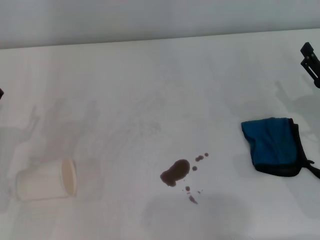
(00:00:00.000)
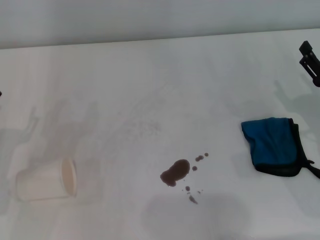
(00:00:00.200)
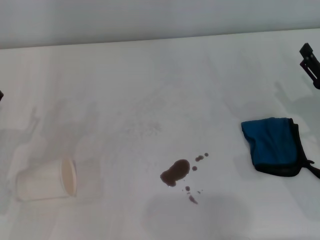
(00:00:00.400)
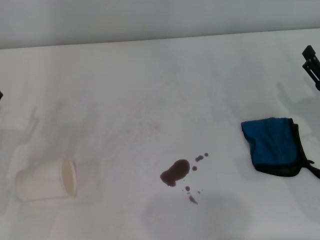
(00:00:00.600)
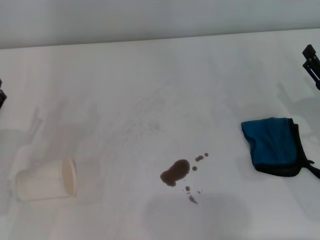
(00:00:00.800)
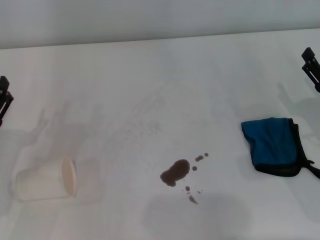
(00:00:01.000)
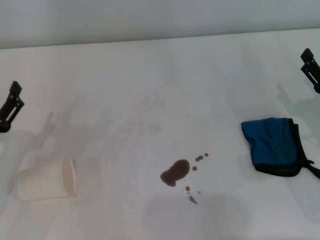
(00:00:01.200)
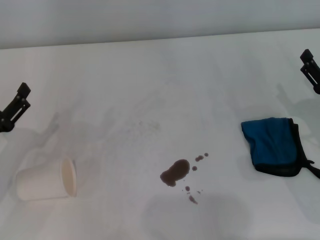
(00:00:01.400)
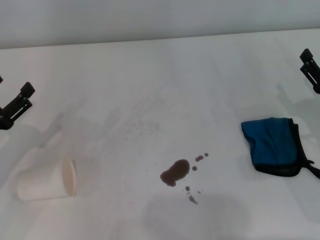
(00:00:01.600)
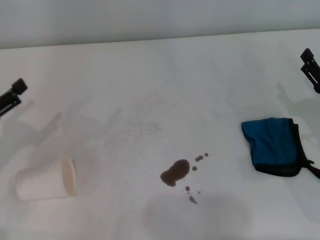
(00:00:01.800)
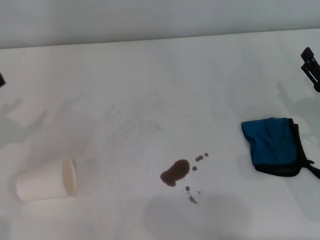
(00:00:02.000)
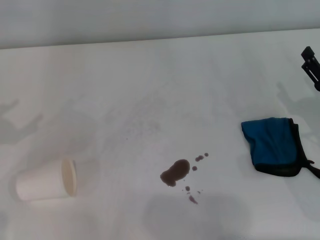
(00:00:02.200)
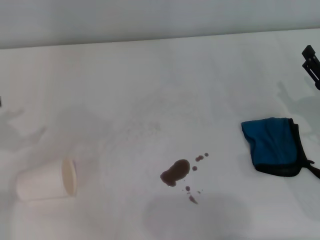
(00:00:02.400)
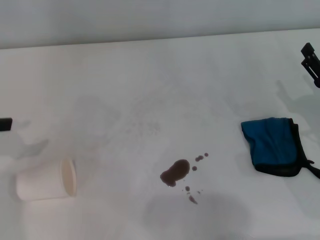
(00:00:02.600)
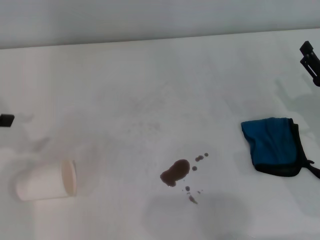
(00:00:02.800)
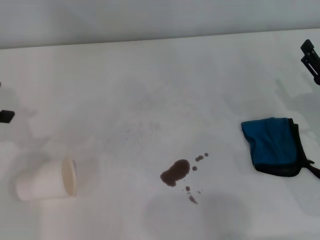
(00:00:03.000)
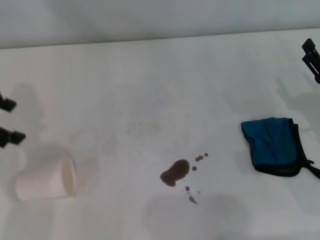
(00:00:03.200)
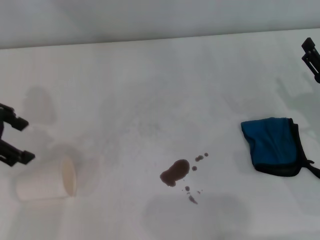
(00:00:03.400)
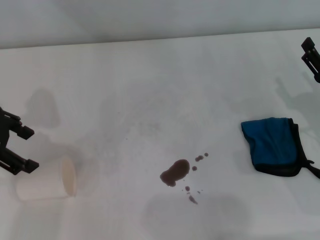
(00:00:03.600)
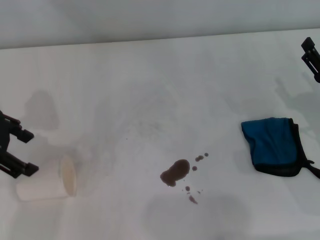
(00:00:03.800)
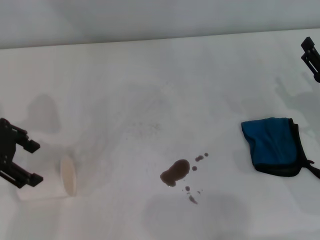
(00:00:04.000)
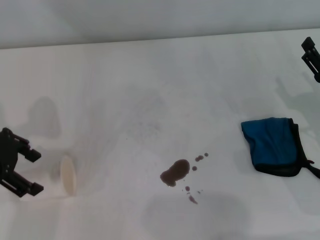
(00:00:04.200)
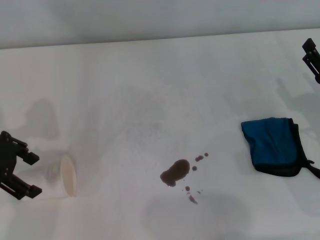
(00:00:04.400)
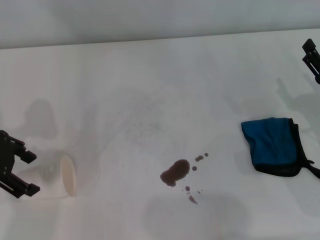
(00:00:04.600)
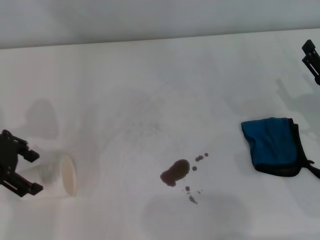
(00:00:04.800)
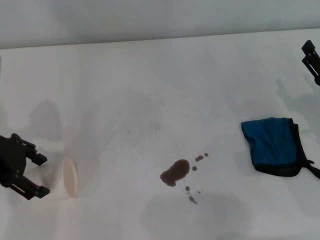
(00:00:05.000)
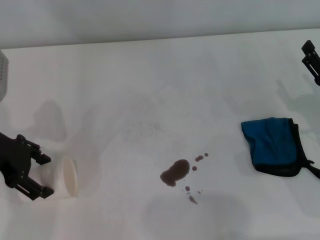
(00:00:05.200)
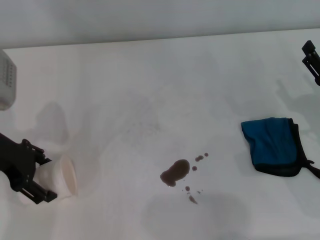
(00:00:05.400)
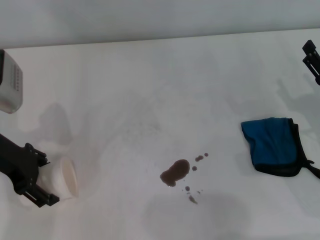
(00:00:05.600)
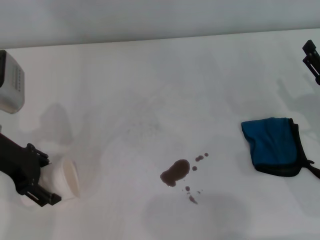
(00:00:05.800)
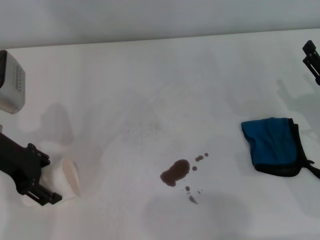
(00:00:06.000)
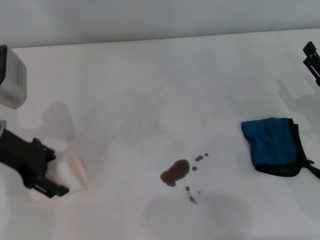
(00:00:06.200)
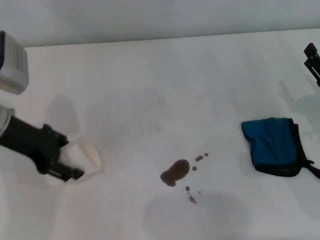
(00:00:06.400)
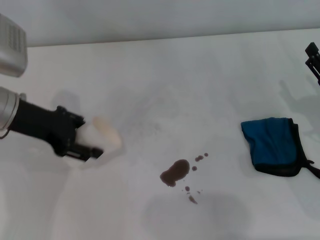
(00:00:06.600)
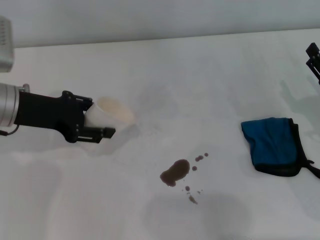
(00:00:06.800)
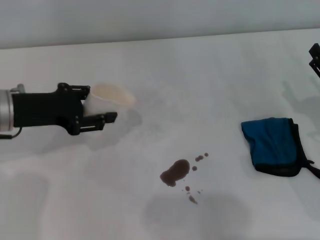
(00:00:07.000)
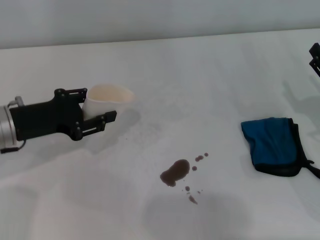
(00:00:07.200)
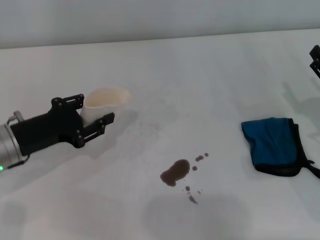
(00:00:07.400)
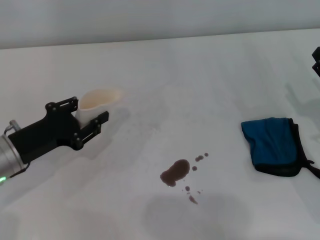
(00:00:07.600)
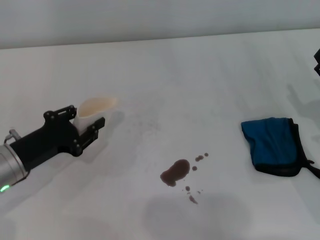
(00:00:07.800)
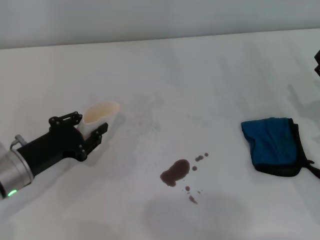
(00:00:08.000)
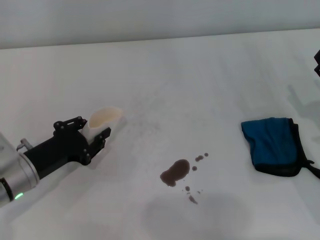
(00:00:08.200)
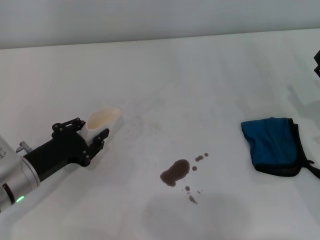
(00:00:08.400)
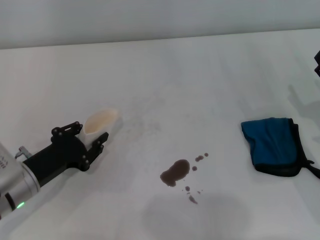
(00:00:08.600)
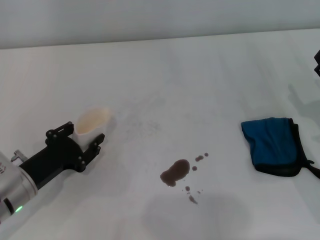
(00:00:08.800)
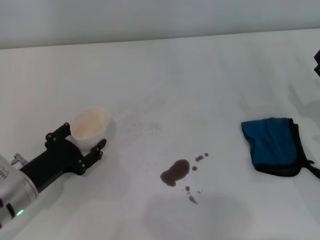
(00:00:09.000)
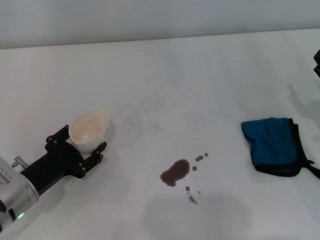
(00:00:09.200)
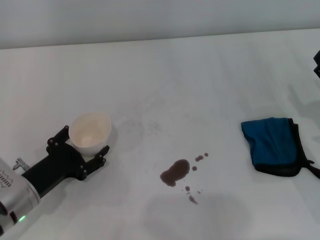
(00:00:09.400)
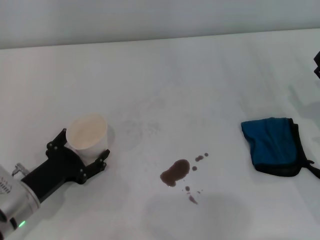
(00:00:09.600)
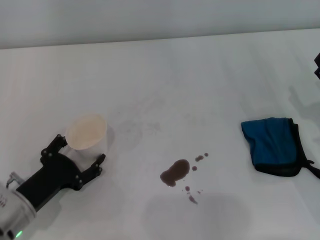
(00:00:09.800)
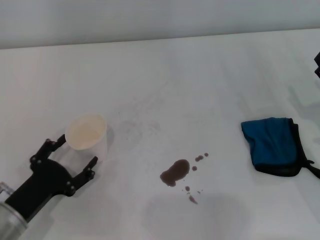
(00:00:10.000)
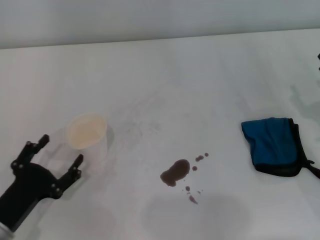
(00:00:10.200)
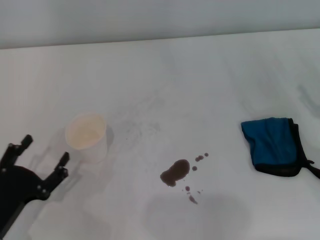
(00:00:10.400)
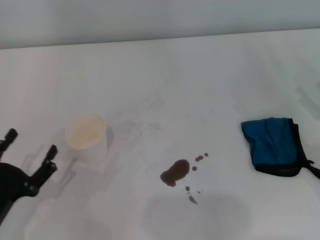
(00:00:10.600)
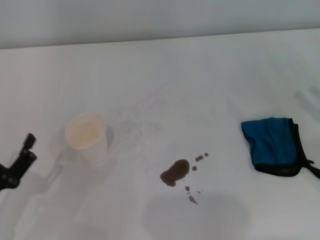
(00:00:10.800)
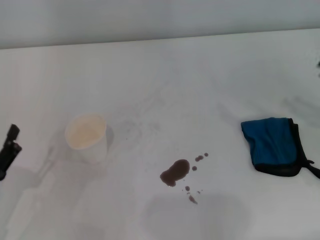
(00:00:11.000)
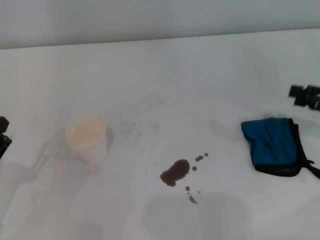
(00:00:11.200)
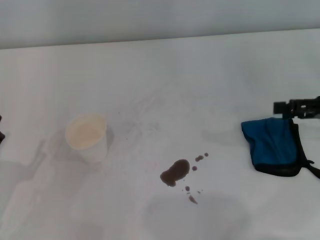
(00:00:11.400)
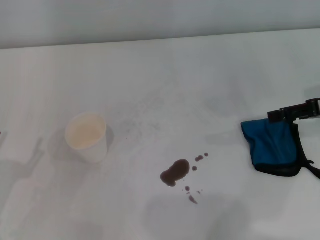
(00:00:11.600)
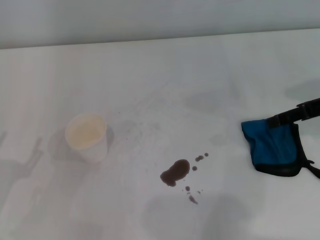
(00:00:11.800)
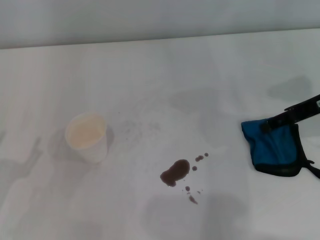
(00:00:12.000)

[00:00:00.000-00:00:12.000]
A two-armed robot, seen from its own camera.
Step, 00:00:00.000 to 00:00:06.000: Grasp the paper cup with the left gripper.
Step, 00:00:06.200 to 00:00:09.400: Stand the paper cup upright with the left gripper.
00:00:01.600 to 00:00:03.000: The left gripper travels upward and forward by approximately 20 cm.
00:00:03.000 to 00:00:04.400: The left gripper heads to the right and downward, covering some 10 cm.
00:00:04.400 to 00:00:06.000: The left gripper shifts by about 5 cm.
00:00:06.000 to 00:00:07.600: The left gripper heads downward and backward, covering some 10 cm, and closes.
00:00:07.600 to 00:00:09.000: The left gripper changes place by roughly 5 cm.
00:00:09.000 to 00:00:10.400: The left gripper goes approximately 10 cm backward, and opens up.
00:00:10.400 to 00:00:12.000: The right gripper heads upward, forward and to the left, covering roughly 15 cm. Meanwhile the left gripper shifts by some 5 cm.

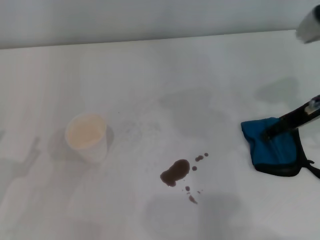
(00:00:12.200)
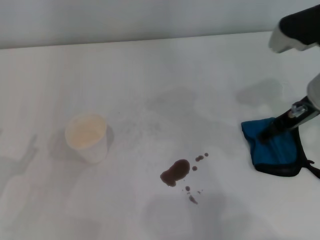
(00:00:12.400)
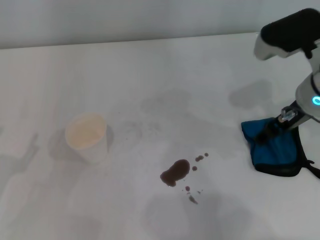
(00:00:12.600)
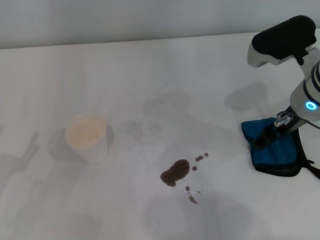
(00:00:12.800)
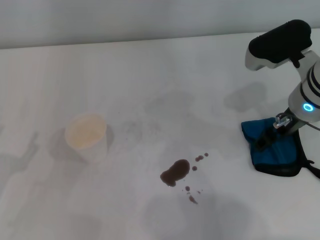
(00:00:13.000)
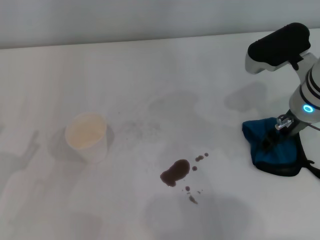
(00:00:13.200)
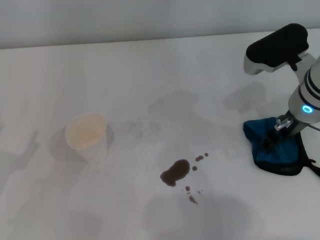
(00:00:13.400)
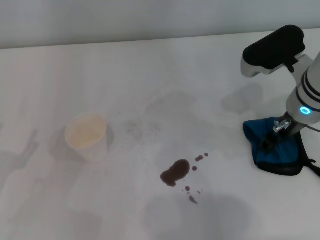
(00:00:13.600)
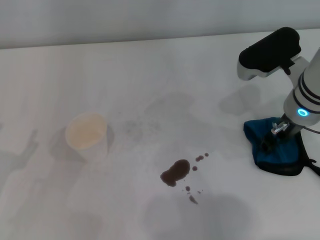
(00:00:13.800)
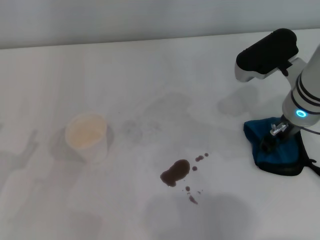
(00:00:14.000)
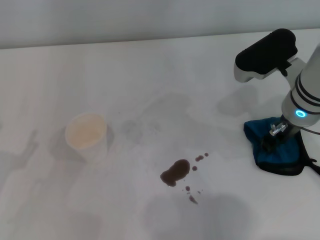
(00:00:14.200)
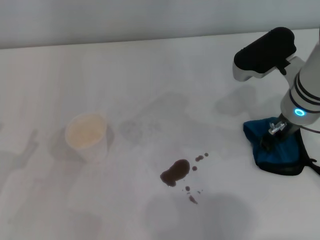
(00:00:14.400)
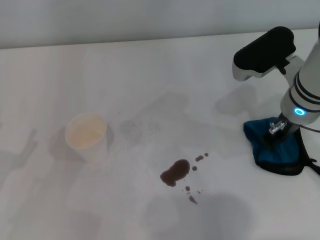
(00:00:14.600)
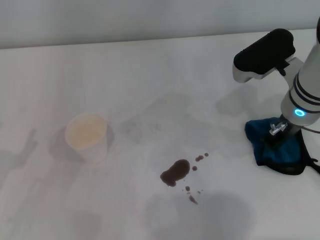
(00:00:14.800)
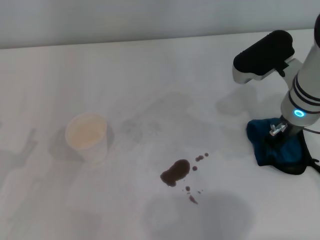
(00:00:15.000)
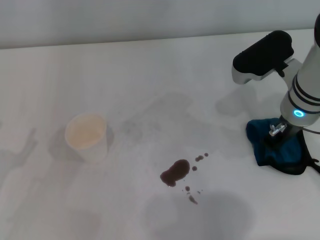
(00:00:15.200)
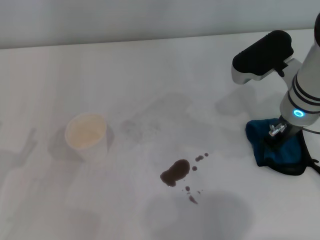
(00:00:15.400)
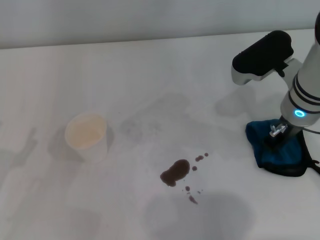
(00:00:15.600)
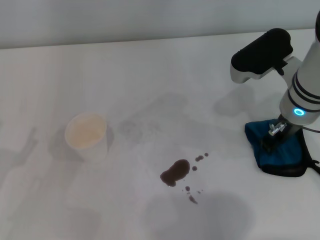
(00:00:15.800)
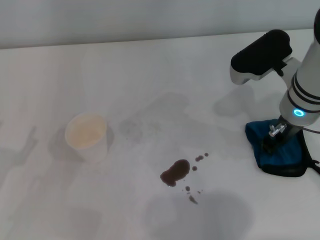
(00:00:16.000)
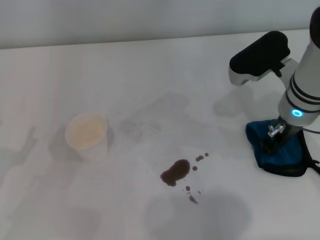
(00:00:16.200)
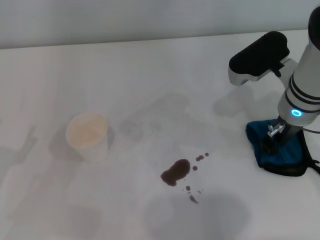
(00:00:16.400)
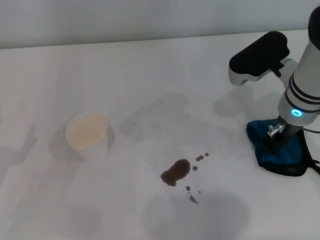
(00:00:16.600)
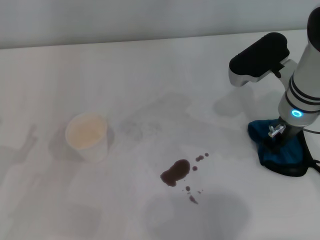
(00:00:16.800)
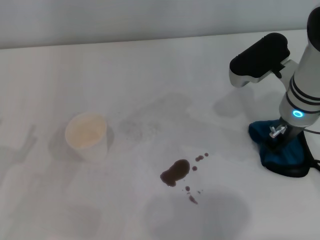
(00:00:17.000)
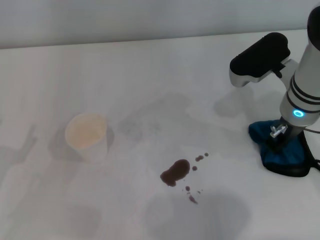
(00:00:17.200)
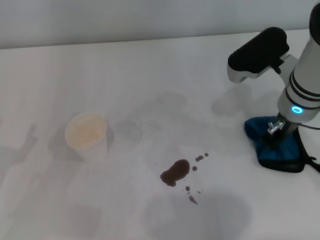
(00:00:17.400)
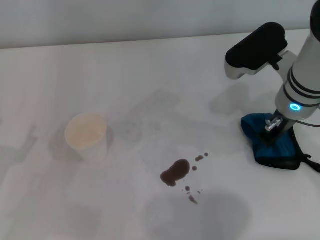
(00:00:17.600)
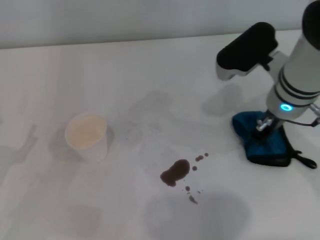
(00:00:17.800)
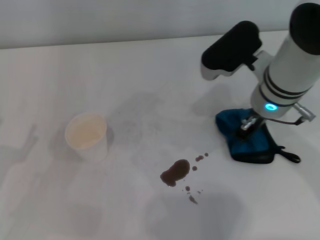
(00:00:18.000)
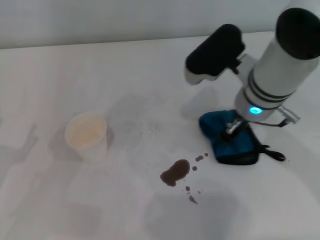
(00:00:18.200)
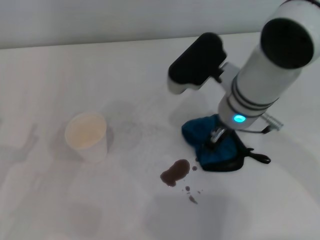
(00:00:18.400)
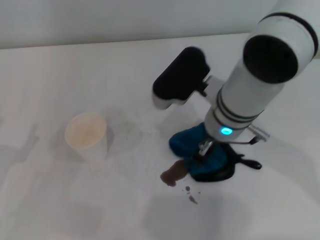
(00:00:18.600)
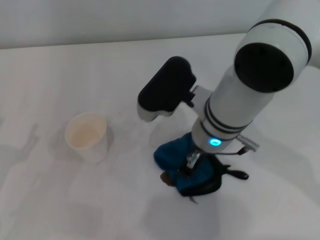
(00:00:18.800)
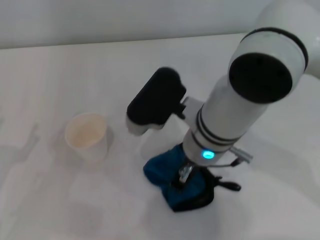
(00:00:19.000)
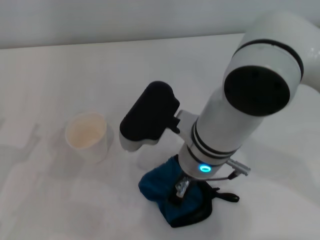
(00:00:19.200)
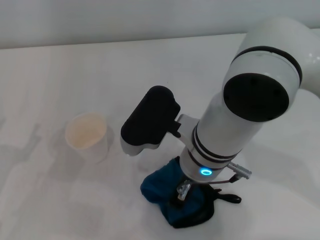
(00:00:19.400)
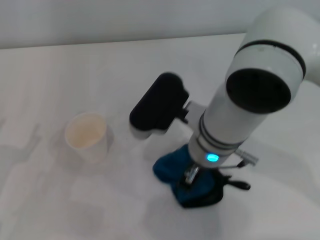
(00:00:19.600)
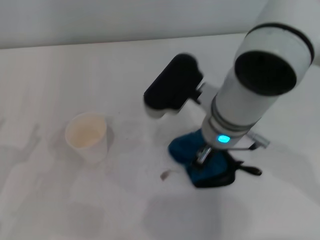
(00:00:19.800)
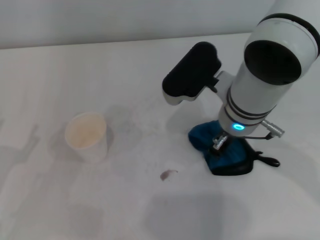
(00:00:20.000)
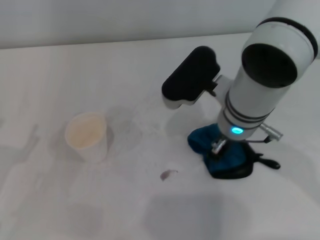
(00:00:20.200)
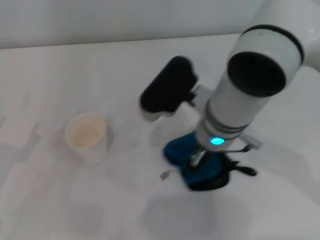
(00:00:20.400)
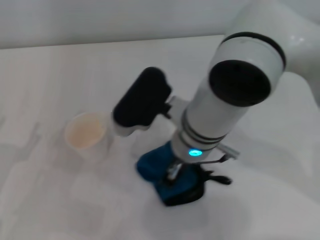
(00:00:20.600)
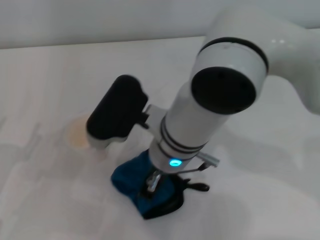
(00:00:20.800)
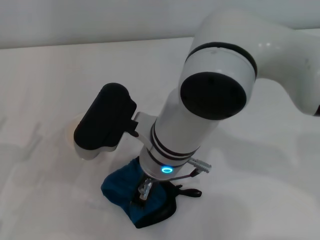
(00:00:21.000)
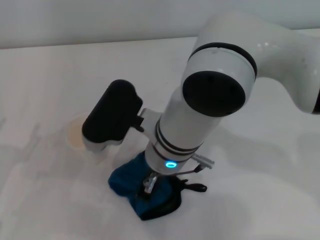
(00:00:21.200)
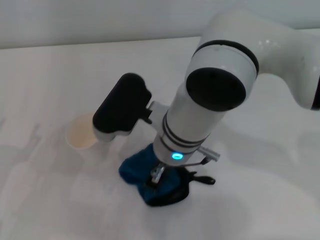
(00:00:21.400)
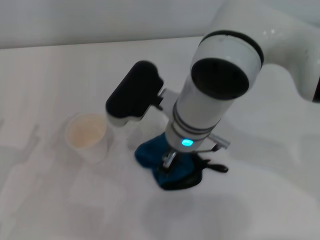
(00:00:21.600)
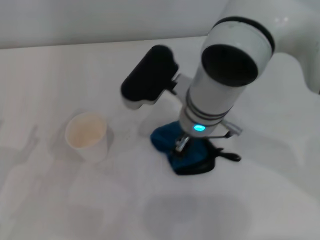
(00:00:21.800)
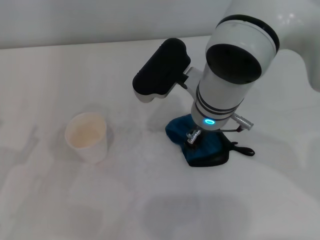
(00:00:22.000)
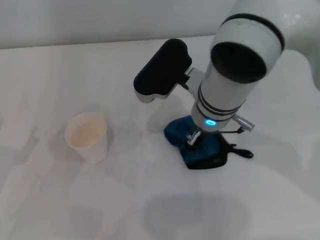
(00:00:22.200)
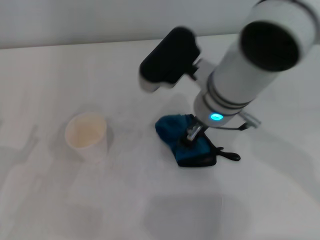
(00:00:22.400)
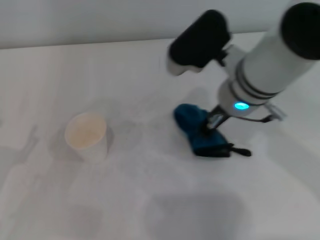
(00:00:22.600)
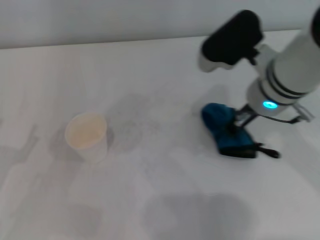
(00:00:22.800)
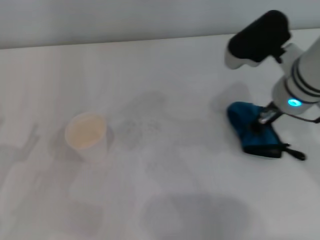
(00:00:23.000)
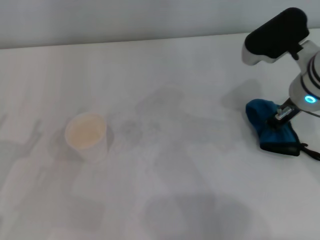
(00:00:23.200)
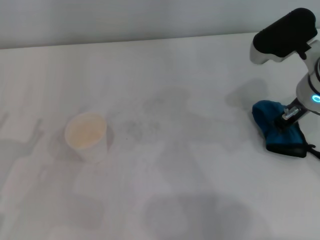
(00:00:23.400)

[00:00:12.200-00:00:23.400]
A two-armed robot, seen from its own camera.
Step, 00:00:12.200 to 00:00:15.200: Grasp the rag with the right gripper.
00:00:12.200 to 00:00:13.800: The right gripper shifts approximately 5 cm to the left.
00:00:13.800 to 00:00:15.400: The right gripper closes its fingers.
00:00:15.400 to 00:00:17.000: Both grippers stay about where they are.
00:00:17.000 to 00:00:18.600: The right gripper is displaced to the left by some 10 cm.
00:00:21.800 to 00:00:23.400: The right gripper is displaced to the right by roughly 15 cm.
